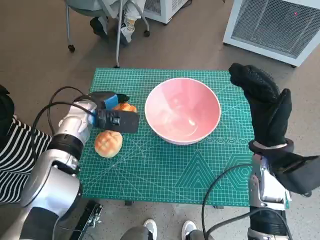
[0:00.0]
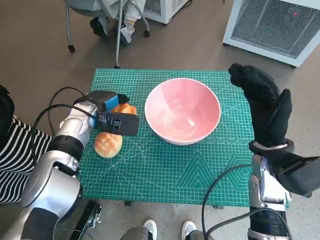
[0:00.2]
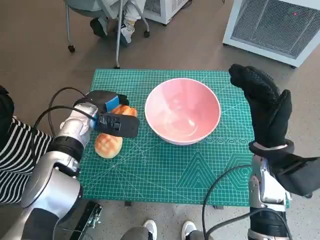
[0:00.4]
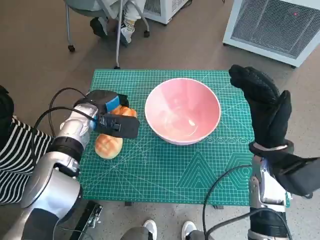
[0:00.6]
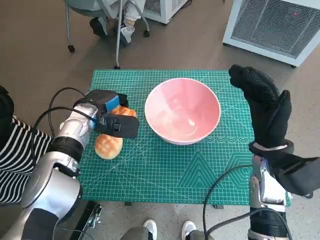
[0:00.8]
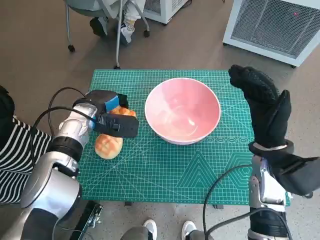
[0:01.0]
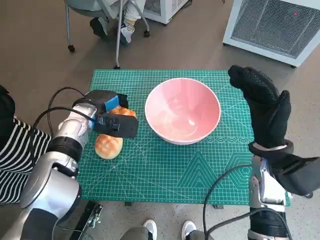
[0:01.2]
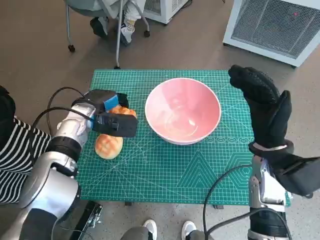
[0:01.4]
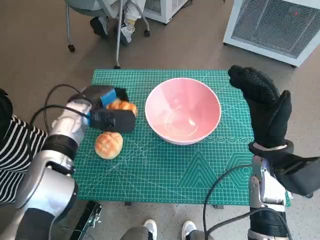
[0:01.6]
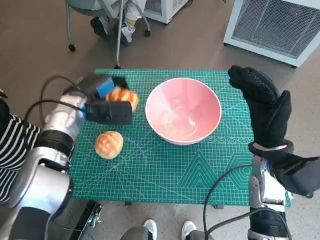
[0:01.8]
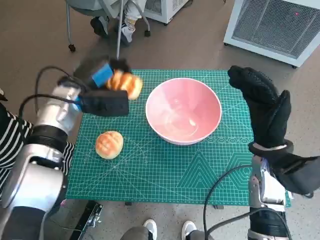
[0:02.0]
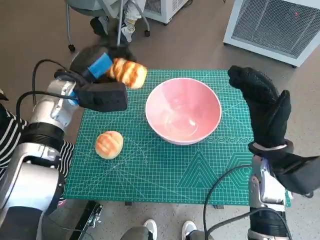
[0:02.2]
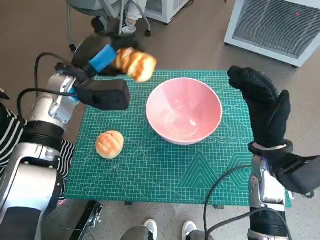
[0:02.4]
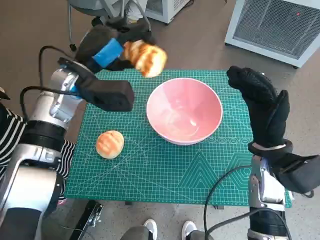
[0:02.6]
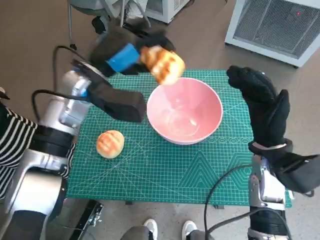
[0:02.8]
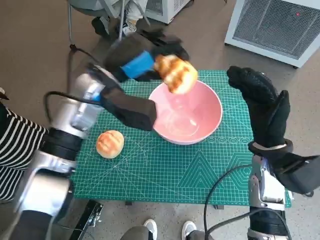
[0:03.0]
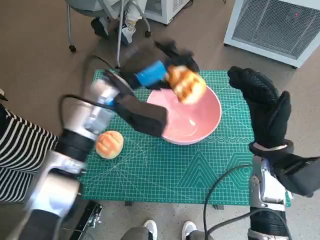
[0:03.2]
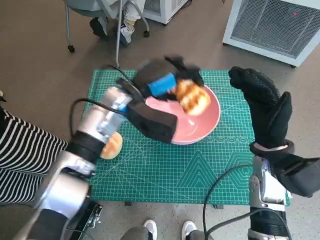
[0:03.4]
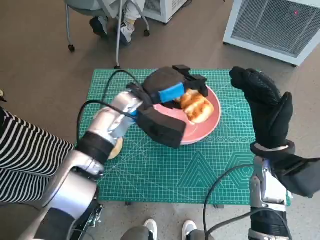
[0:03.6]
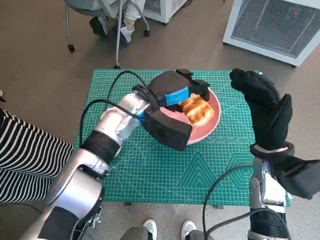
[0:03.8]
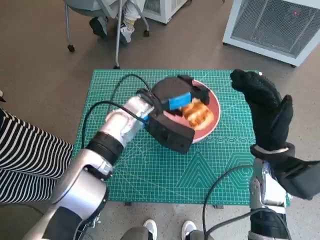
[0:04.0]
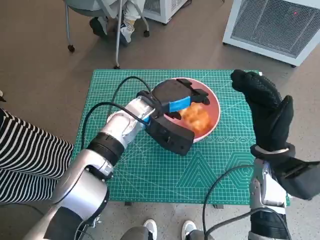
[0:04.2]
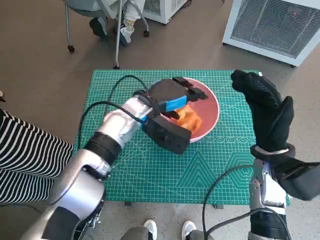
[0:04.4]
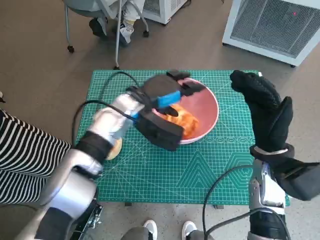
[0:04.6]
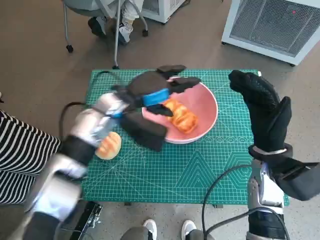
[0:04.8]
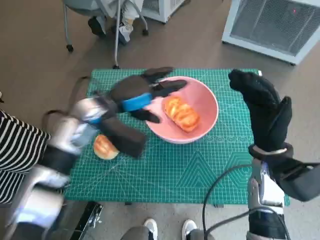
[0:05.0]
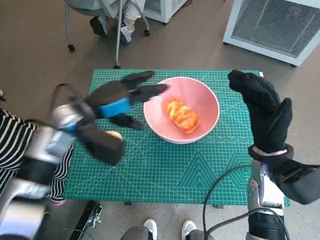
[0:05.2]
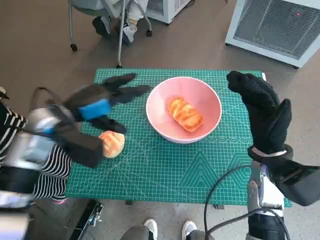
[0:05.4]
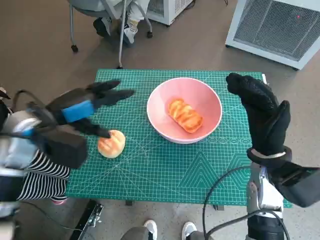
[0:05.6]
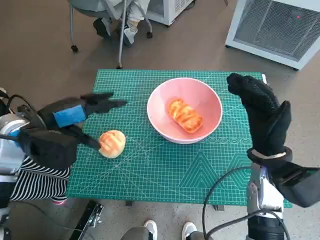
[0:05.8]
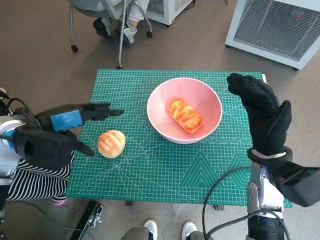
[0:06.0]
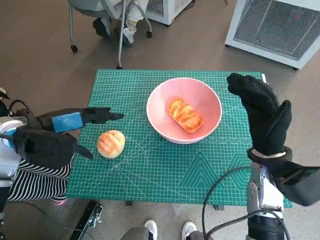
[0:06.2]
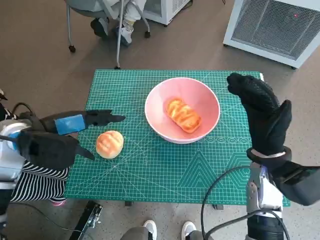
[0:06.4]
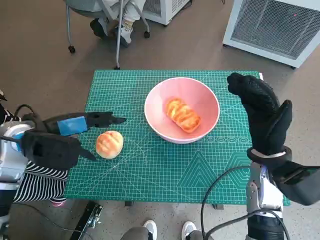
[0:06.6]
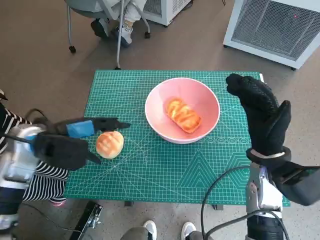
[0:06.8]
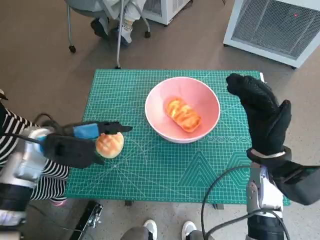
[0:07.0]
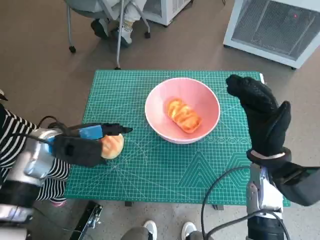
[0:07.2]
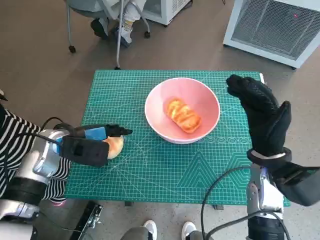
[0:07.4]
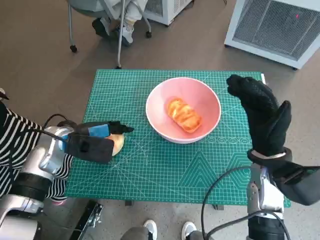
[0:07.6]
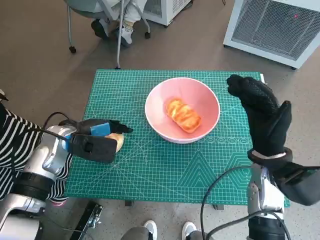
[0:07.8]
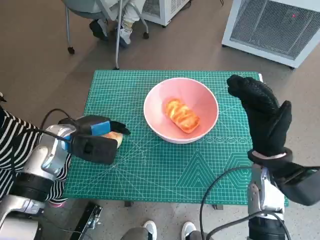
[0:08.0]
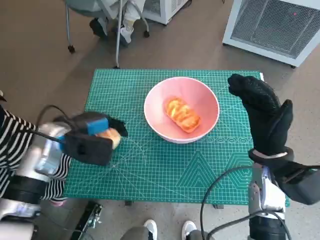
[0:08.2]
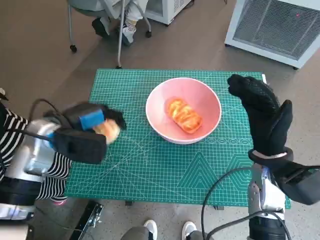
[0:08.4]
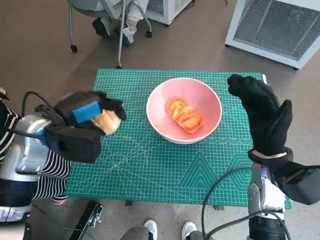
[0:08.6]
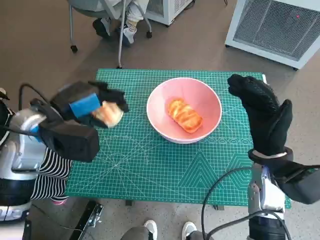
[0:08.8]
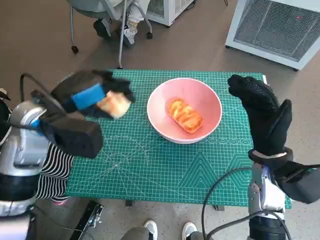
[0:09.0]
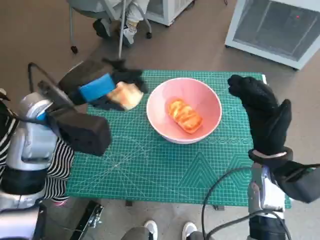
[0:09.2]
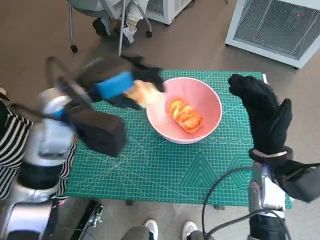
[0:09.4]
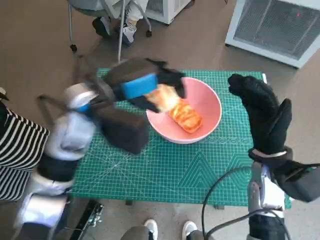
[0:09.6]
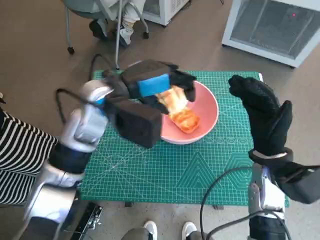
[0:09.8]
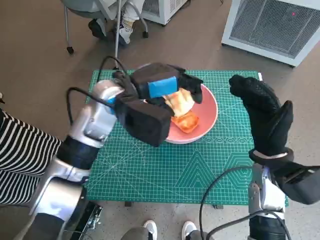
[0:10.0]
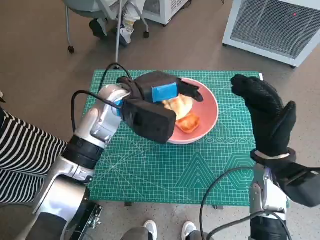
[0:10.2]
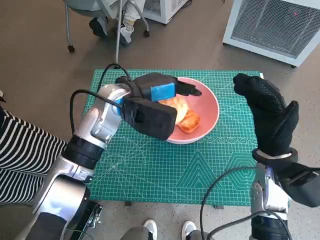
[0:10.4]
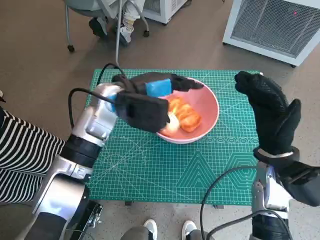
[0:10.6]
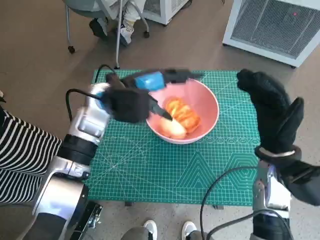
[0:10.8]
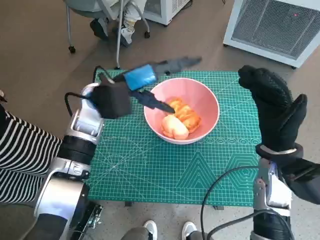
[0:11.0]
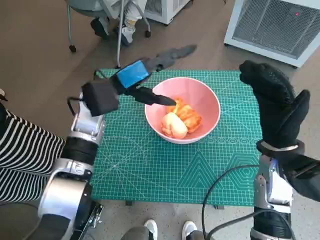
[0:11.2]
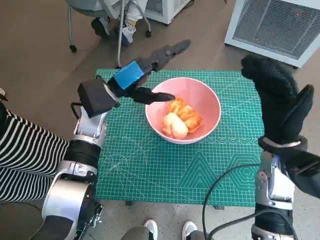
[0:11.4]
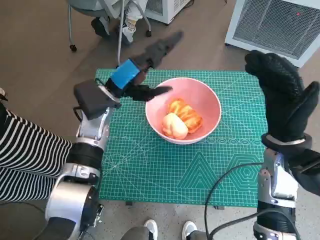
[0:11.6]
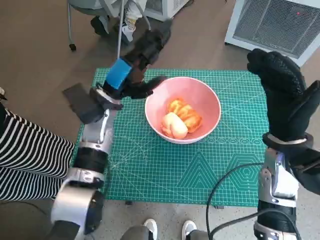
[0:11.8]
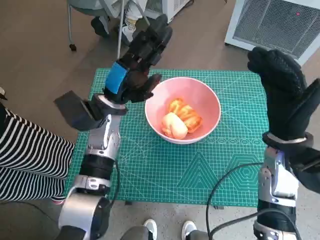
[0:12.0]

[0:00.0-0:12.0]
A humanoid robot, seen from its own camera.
Task of the whole recording: Push the bowl into the center of the table and put the bread into the bowl.
Step, 0:00.6 to 0:05.0: Place the long bread in pink bowl with left hand.
Step, 0:05.2 to 0:07.8: Grasp the round bread with left hand.
Step, 0:08.0 to 0:11.0: Place the round bread in pink bowl with left hand.
0:00.0 to 0:01.6: The hands move only a little.
0:01.6 to 0:03.0: The left hand moves upward and to the right, approximately 10 cm.
0:03.0 to 0:04.4: The left hand travels downward and to the right by approximately 10 cm.
0:04.4 to 0:06.0: The left hand shifts some 20 cm to the left and backward.
0:06.0 to 0:07.6: The left hand moves downward, some 10 cm.
0:07.6 to 0:09.0: The left hand heads upward, covering roughly 10 cm.
0:09.0 to 0:10.4: The left hand shifts roughly 15 cm to the right and forward.
0:10.4 to 0:12.0: The left hand ends up approximately 5 cm from where it was.

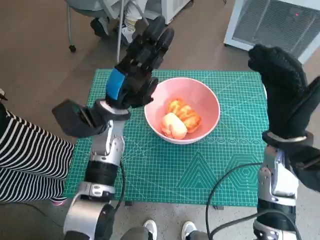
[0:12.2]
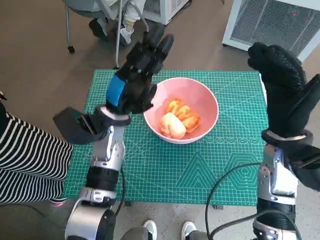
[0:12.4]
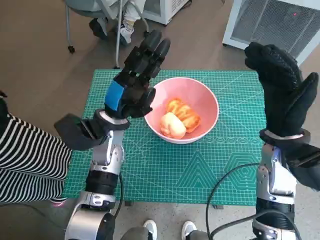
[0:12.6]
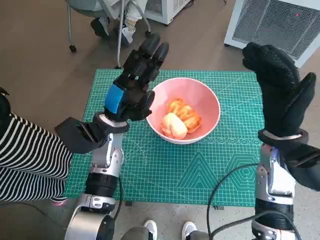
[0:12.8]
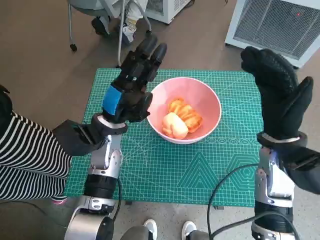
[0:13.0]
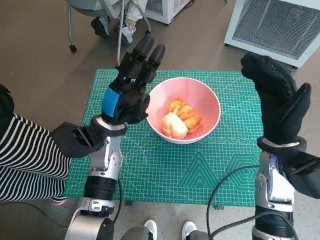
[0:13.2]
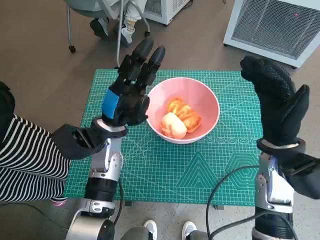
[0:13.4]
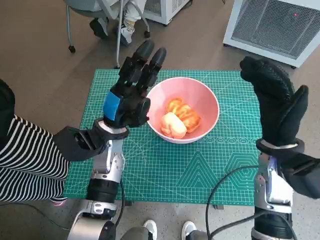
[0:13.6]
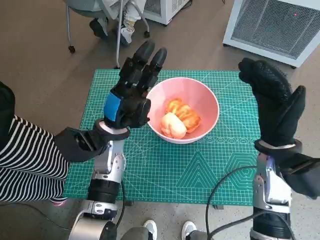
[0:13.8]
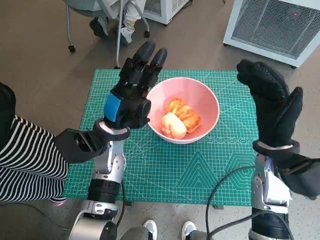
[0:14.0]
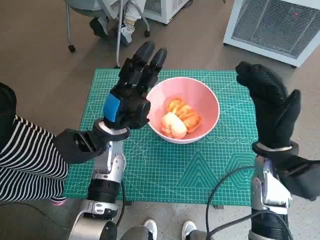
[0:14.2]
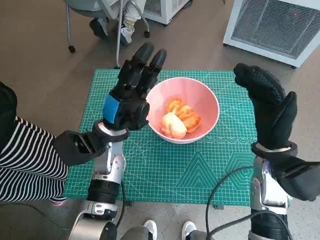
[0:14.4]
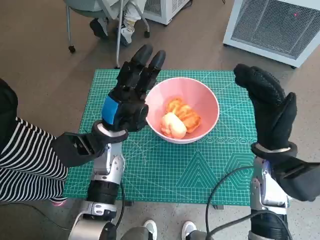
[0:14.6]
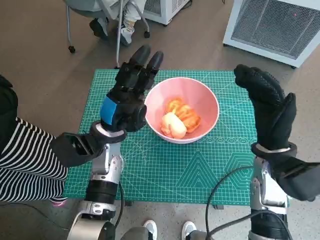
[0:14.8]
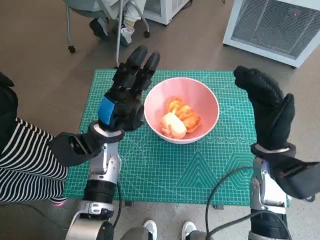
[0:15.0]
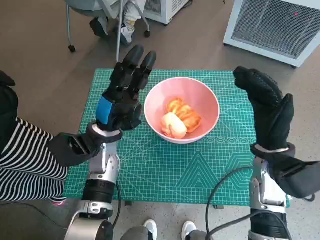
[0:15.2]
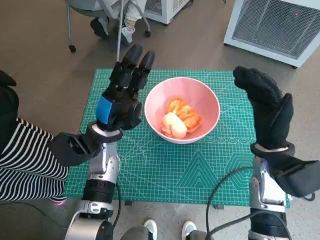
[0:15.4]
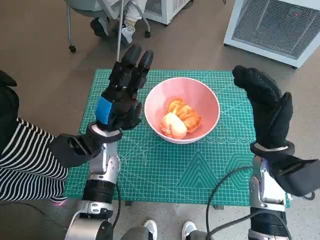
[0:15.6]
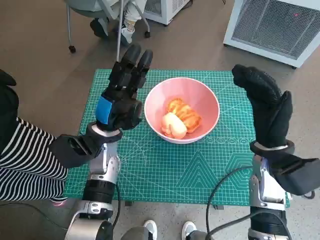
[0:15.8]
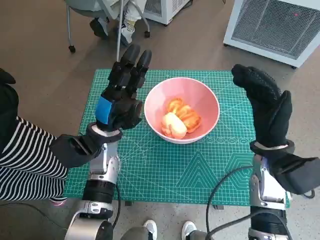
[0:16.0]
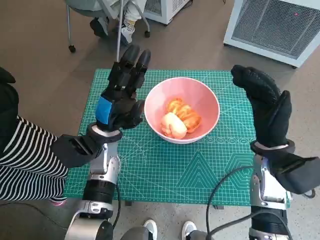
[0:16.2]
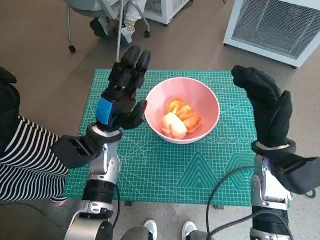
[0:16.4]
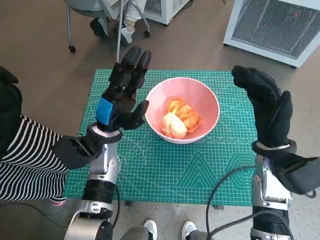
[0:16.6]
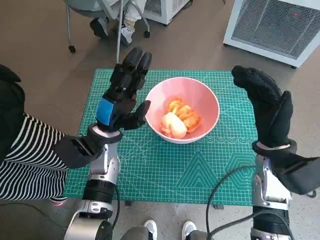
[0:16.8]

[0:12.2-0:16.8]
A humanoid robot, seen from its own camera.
Task of the whole recording: Push the bowl into the center of the table and put the bread into the bowl.
0:13.8 to 0:16.8: There are only small adjustments of the hands.

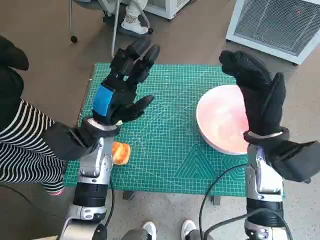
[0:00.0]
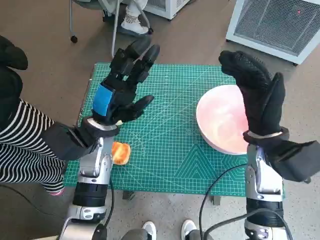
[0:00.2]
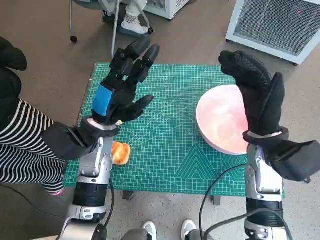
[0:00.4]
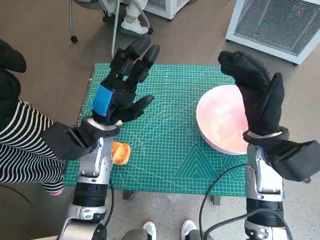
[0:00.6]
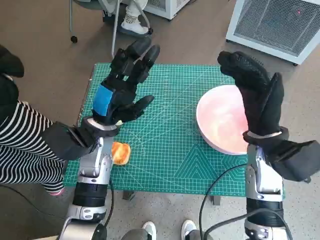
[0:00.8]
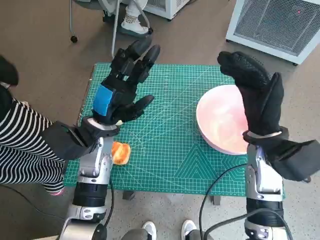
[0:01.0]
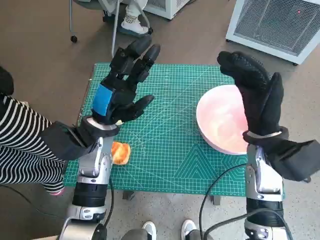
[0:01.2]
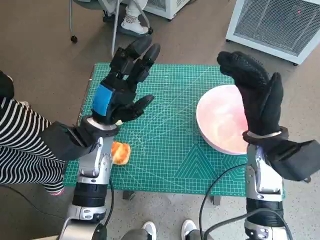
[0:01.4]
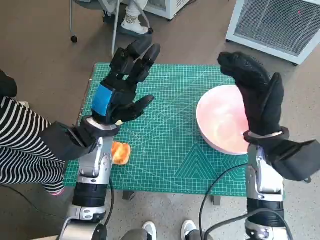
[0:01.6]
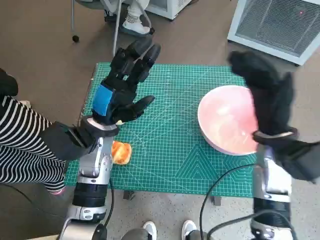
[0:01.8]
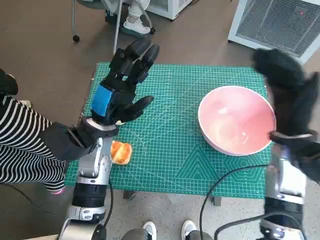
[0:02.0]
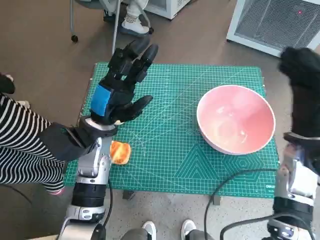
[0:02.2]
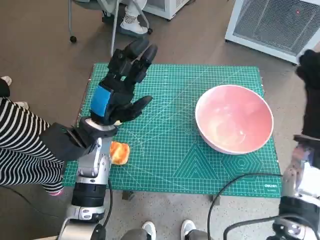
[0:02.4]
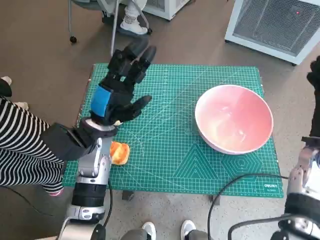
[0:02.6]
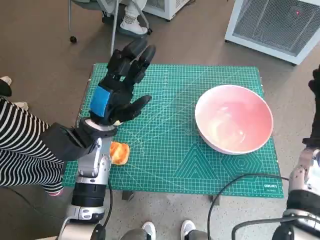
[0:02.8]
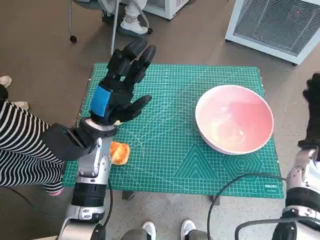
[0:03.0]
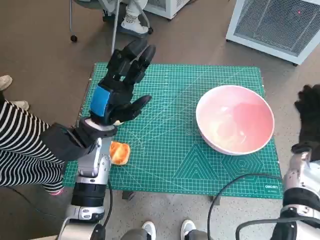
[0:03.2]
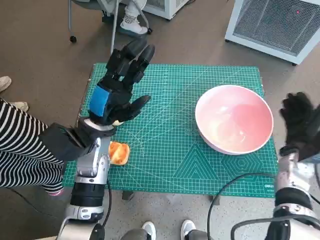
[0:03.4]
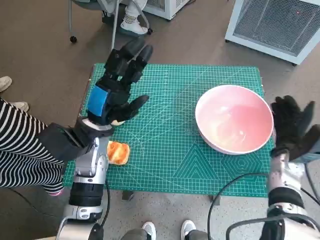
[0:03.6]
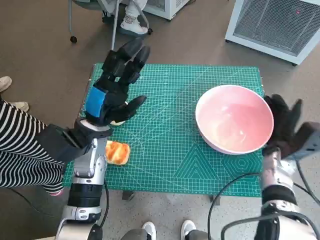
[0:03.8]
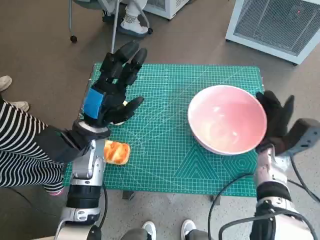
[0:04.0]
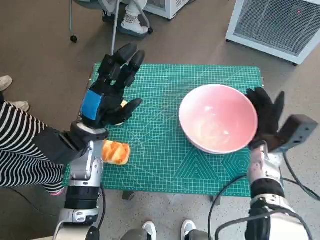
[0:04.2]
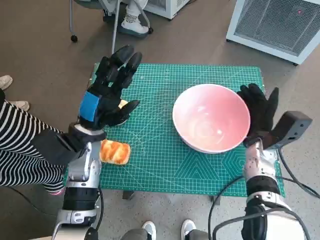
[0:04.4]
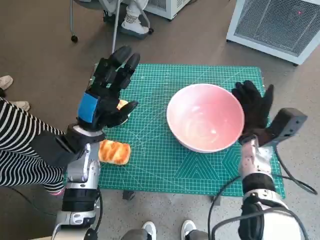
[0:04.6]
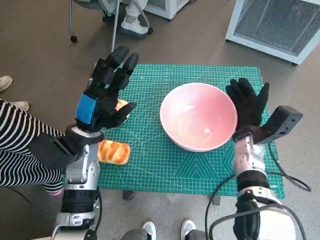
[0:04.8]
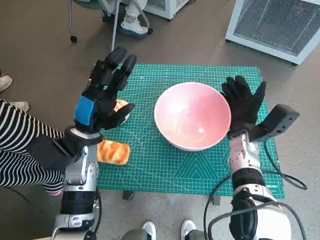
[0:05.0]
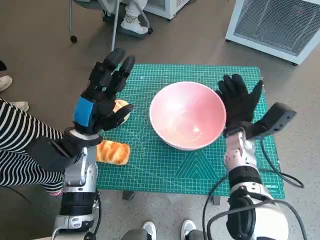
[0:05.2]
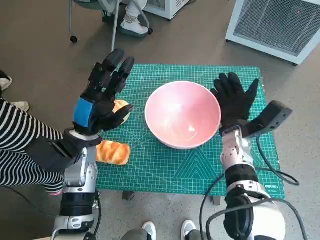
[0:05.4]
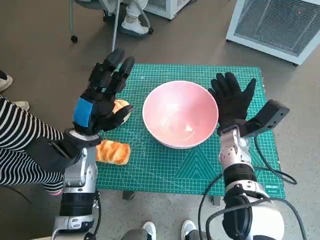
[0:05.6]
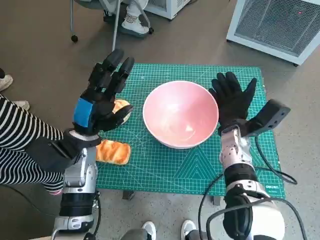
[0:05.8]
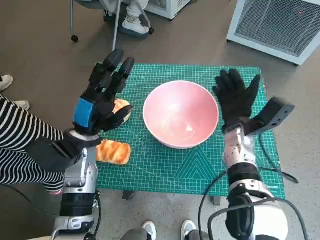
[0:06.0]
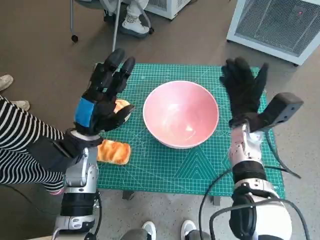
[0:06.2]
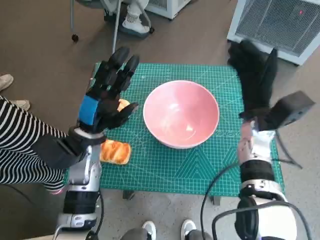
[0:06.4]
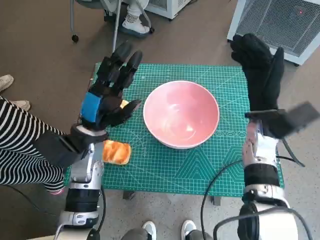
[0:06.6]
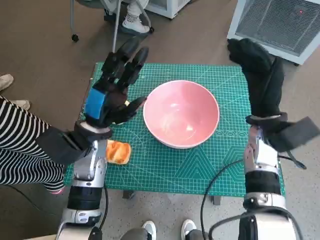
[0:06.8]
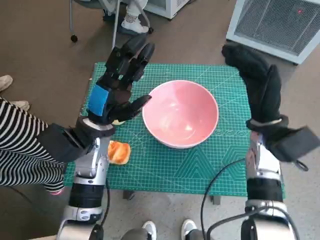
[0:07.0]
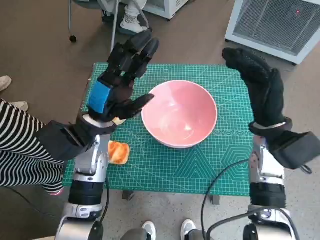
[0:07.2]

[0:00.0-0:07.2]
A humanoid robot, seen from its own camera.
Task of the whole recording: Push the bowl into the center of the table and put the bread into the bowl.
Step, 0:00.0 to 0:05.8: Move the pink bowl to the center of table with right hand.
0:01.4 to 0:02.8: The right hand heads to the right, covering some 10 cm.
0:02.8 to 0:04.4: The right hand goes approximately 10 cm to the left and downward.
0:04.4 to 0:05.8: The right hand moves to the left, approximately 5 cm.
0:05.8 to 0:07.2: The right hand shifts approximately 5 cm upward.
